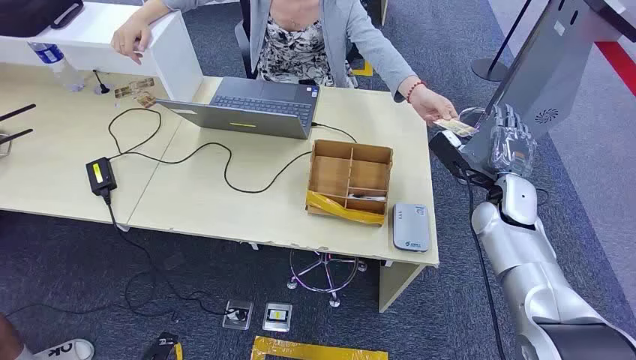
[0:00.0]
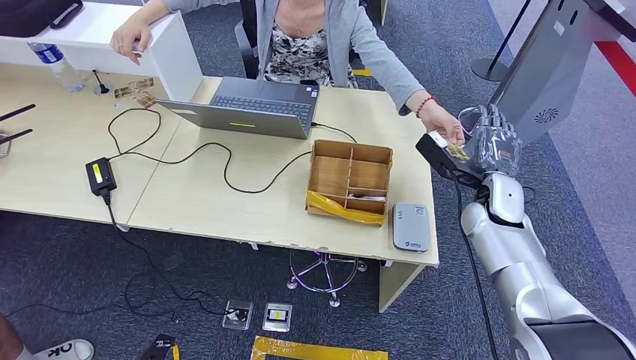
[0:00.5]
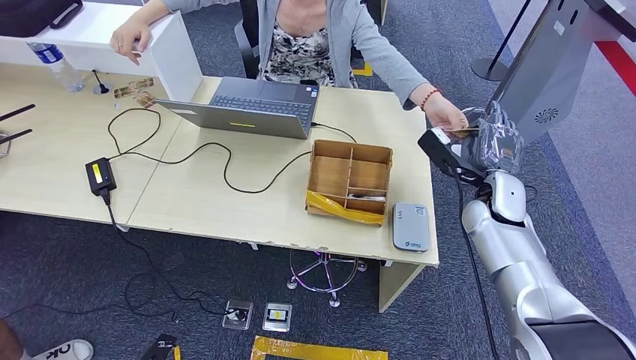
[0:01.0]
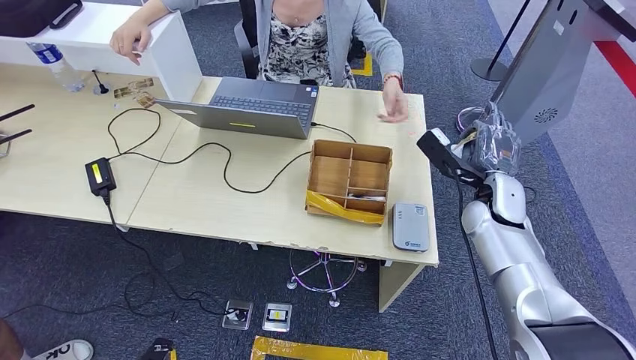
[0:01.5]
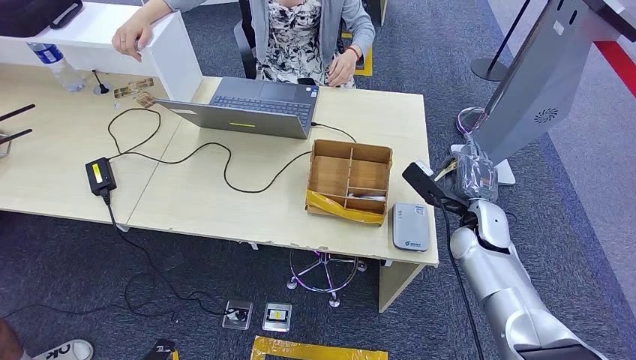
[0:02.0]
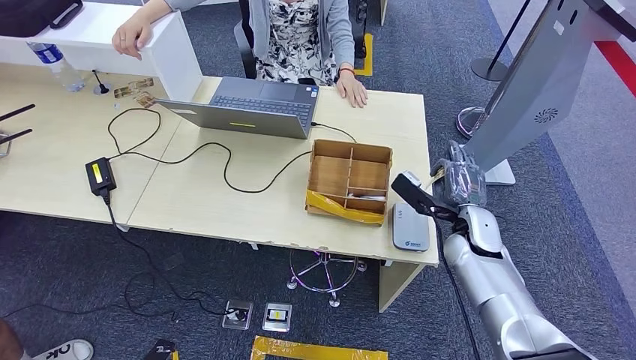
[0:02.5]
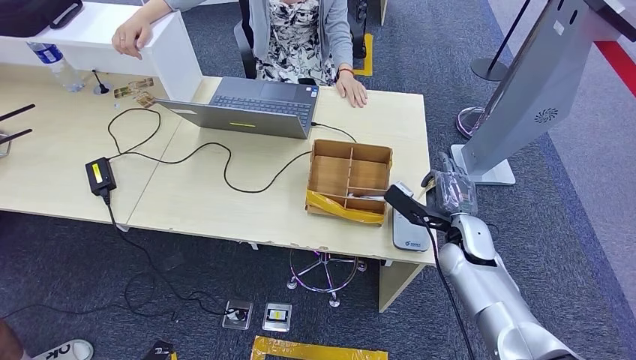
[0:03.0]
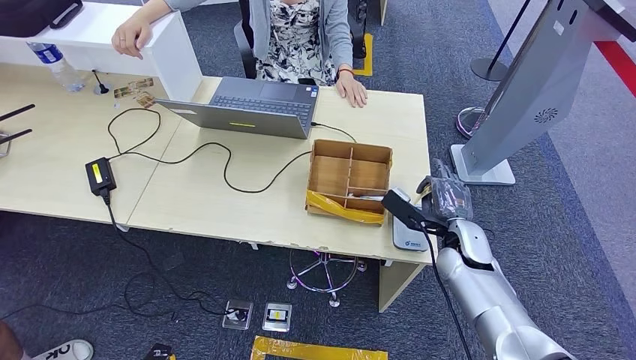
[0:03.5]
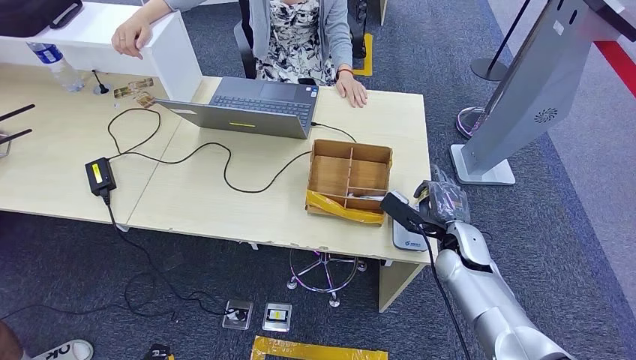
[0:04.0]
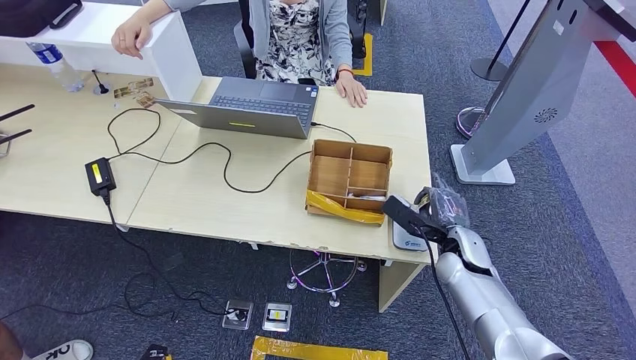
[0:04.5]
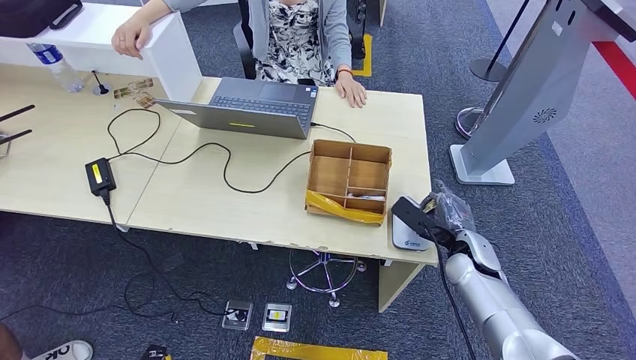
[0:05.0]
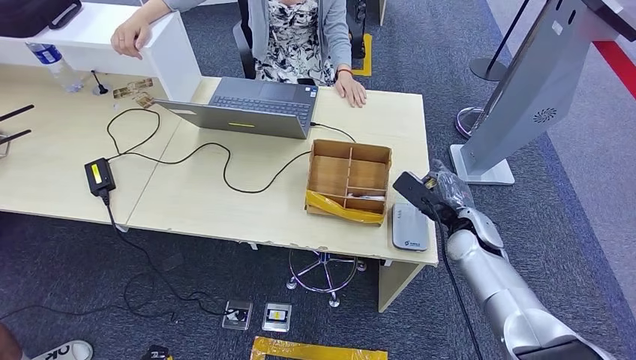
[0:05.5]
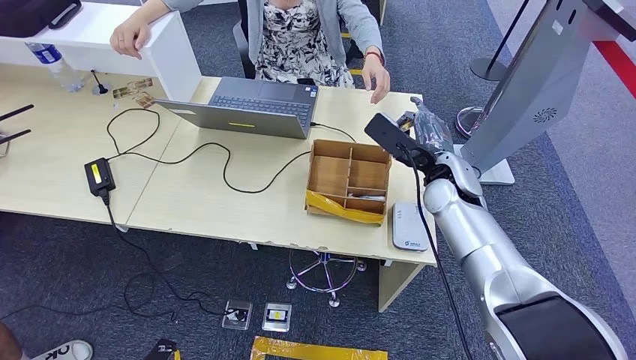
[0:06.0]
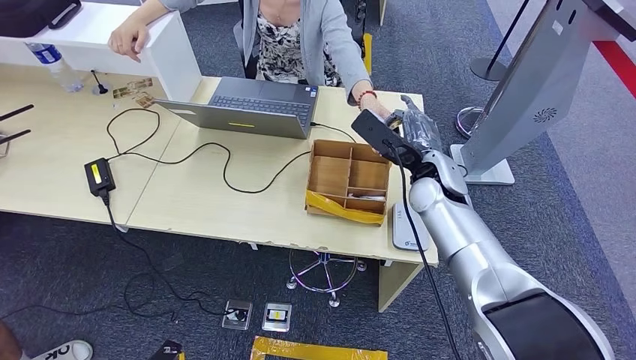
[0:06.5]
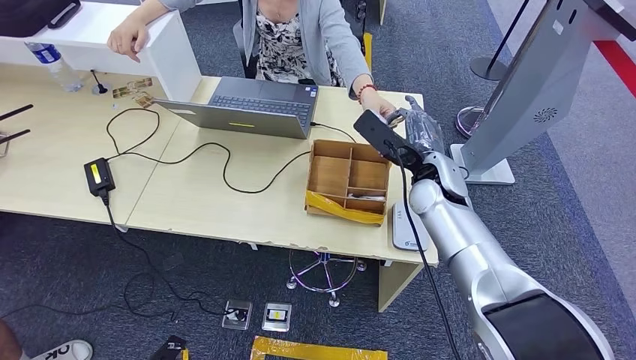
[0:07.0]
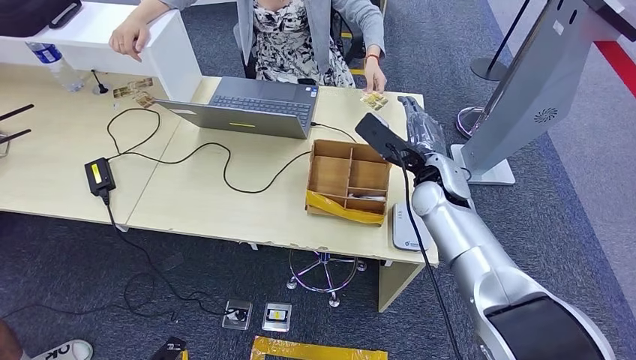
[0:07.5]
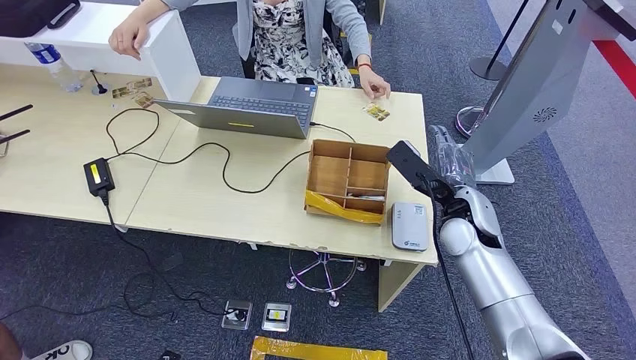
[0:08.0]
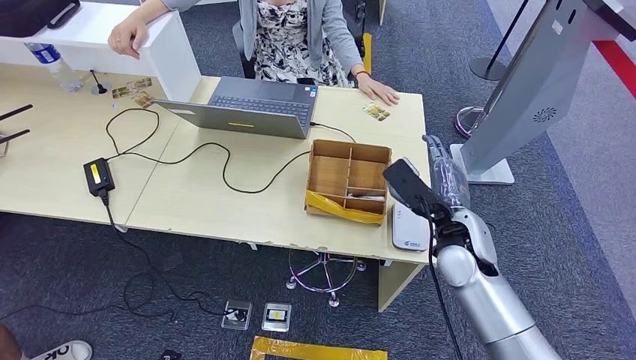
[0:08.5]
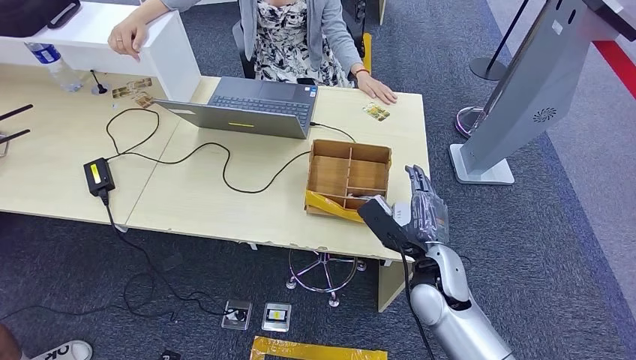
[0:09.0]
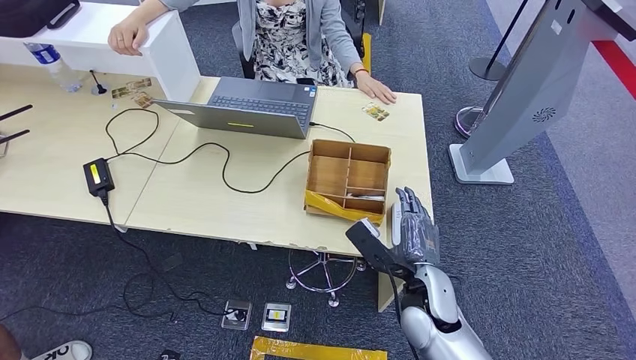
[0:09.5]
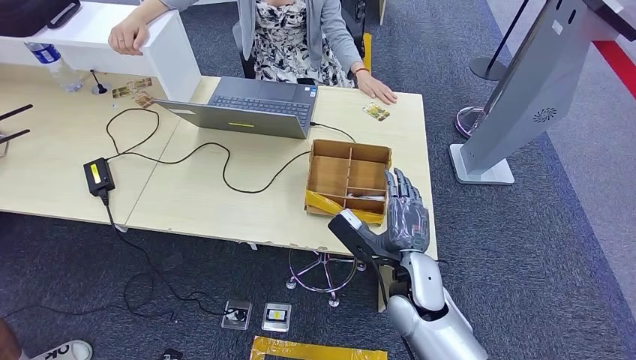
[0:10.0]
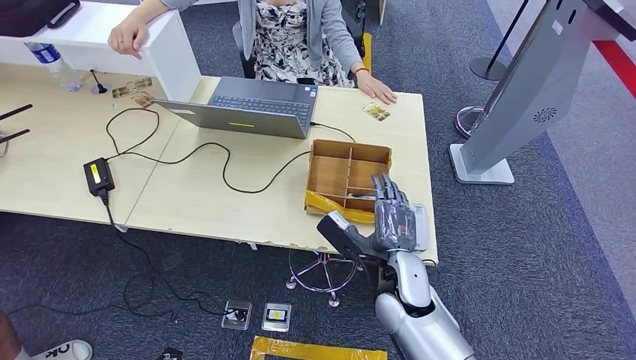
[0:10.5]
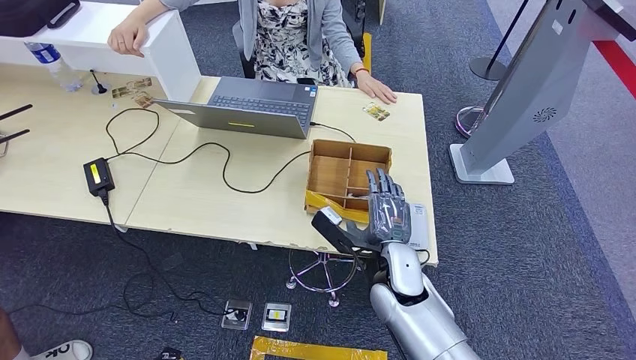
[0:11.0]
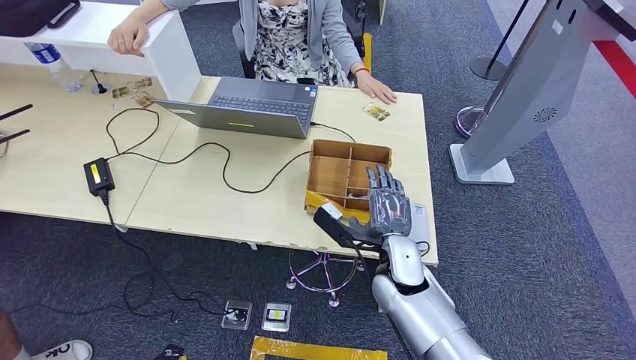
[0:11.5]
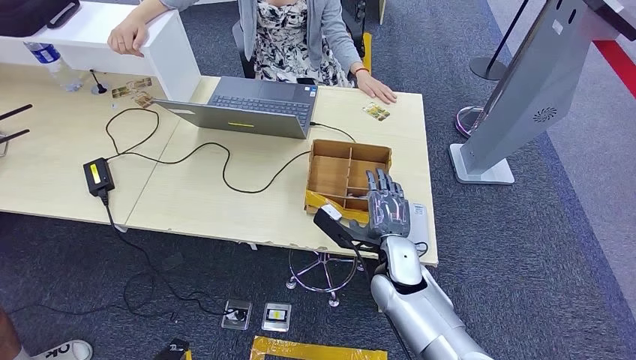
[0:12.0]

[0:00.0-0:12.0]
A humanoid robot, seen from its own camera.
Step, 0:00.0 to 0:02.0: Take the ID card from the person's hand.
Step, 0:02.5 to 0:04.5: Place the ID card on the card reader.
Step, 0:05.0 to 0:07.5: Hand the ID card to the person.
0:02.0 to 0:04.0: The right hand changes place by roughly 5 cm.
0:04.0 to 0:06.0: The right hand goes roughly 15 cm upward, forward and to the left.
0:06.0 to 0:08.0: The right hand shifts by about 5 cm.
0:08.0 to 0:10.0: The right hand heads backward, to the left and downward, covering some 15 cm.
0:10.0 to 0:12.0: The hands move only a little.

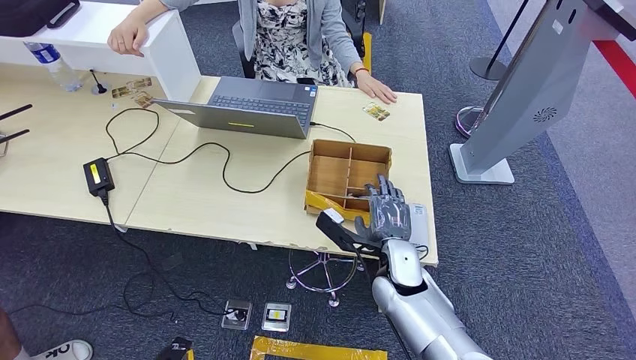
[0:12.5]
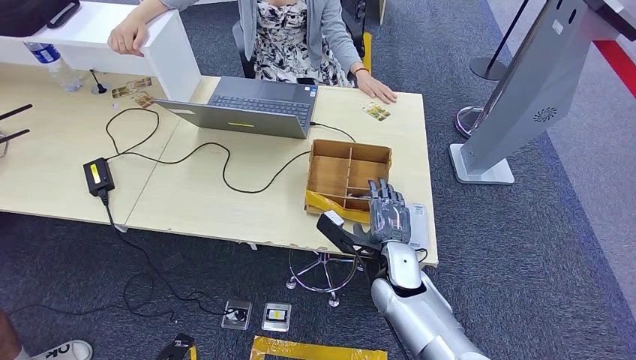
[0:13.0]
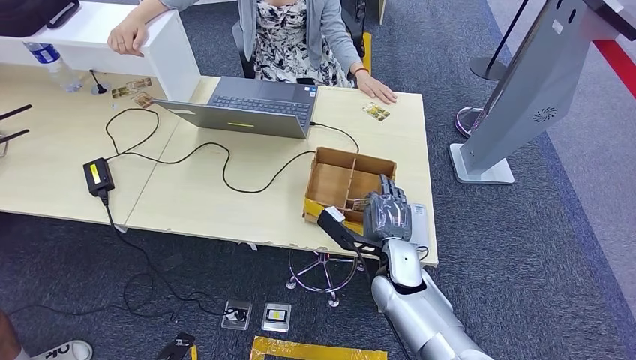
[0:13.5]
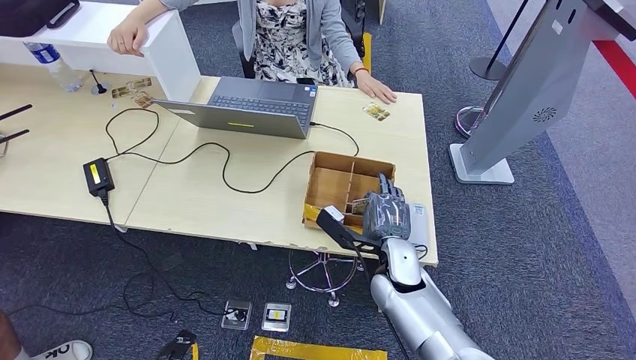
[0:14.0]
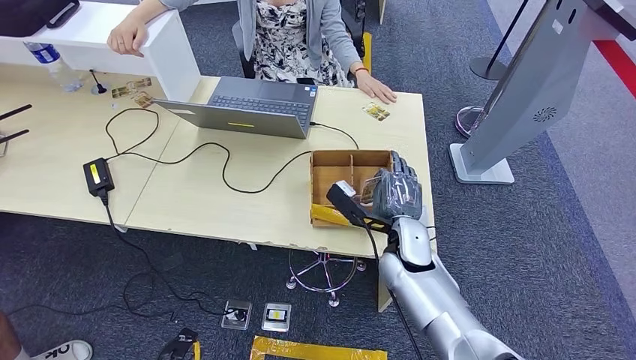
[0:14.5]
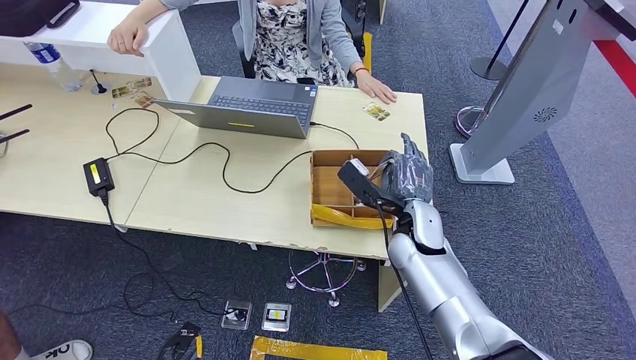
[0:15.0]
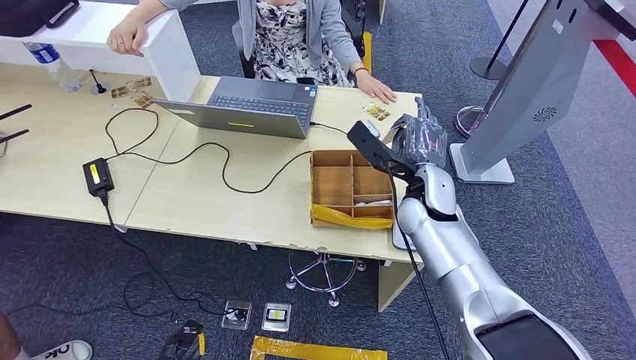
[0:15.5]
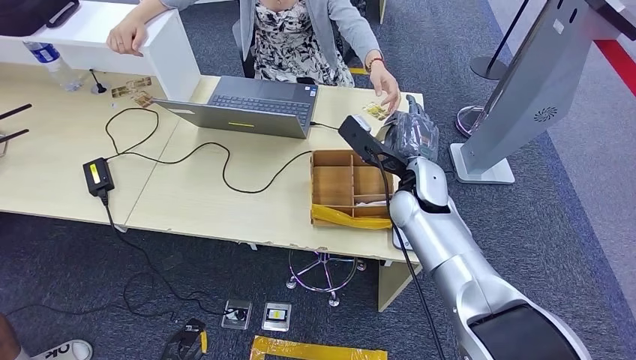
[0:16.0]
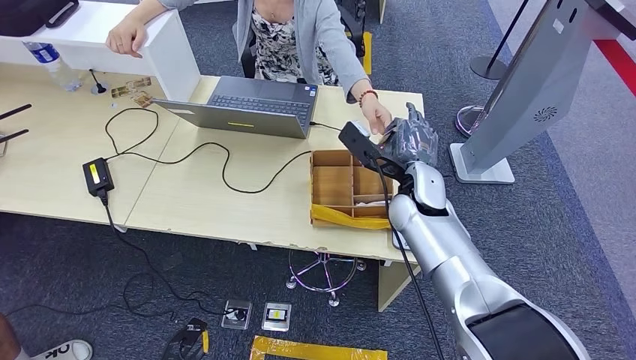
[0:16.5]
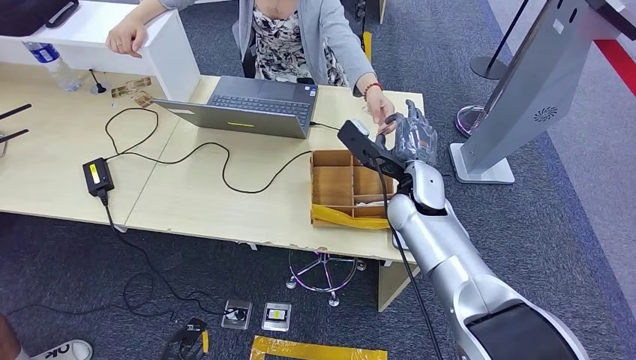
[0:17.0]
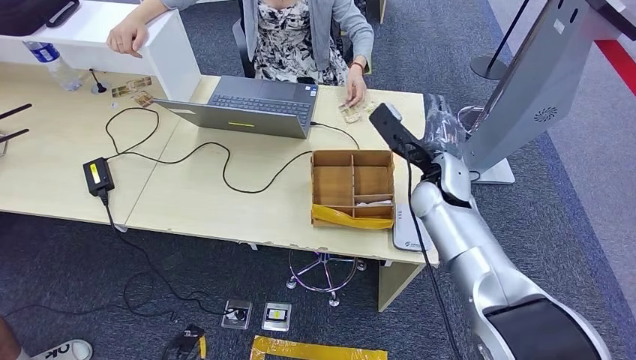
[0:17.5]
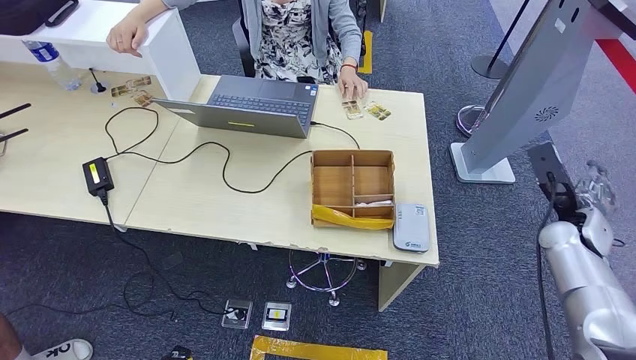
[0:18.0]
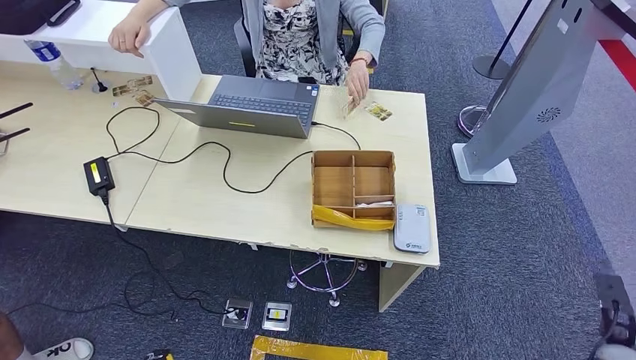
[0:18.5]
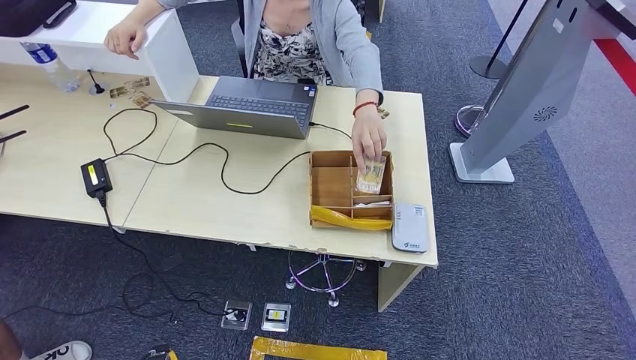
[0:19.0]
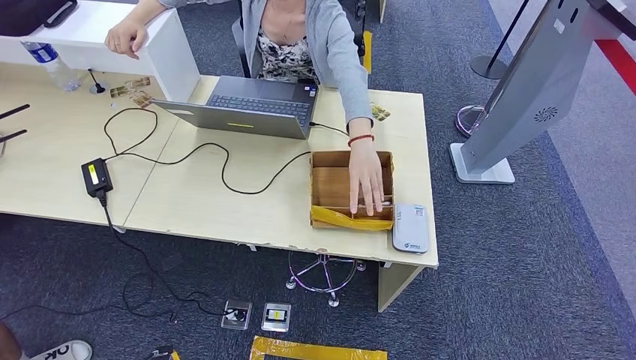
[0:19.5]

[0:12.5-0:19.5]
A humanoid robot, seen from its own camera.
Step, 0:12.5 to 0:15.0: Pick up the room key from the key card box.
Step, 0:15.5 to 0:19.5: Hand the room key to the person.
0:12.5 to 0:14.5: The hands move only a little.
0:14.5 to 0:16.0: The right hand heads upward and forward, covering about 10 cm.
0:16.0 to 0:17.5: The hands make only small movements.
0:17.5 to 0:19.5: The left hand shifts approximately 5 cm backward. Meanwhile the right hand is displaced backward, downward and to the right by approximately 50 cm.
